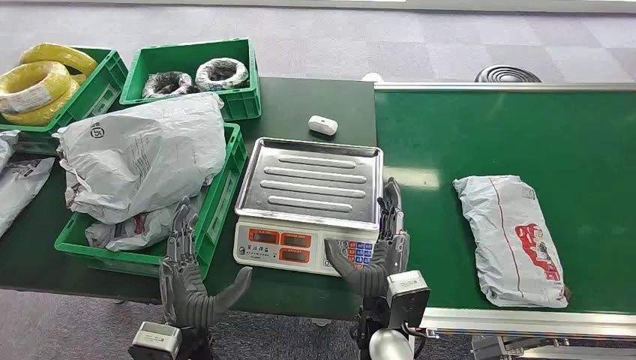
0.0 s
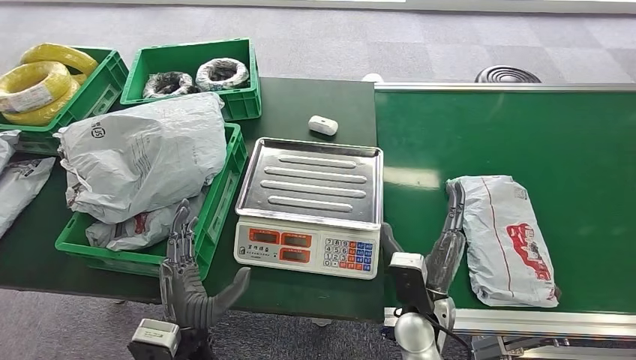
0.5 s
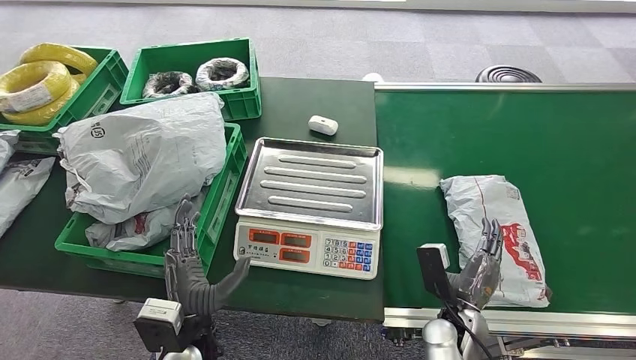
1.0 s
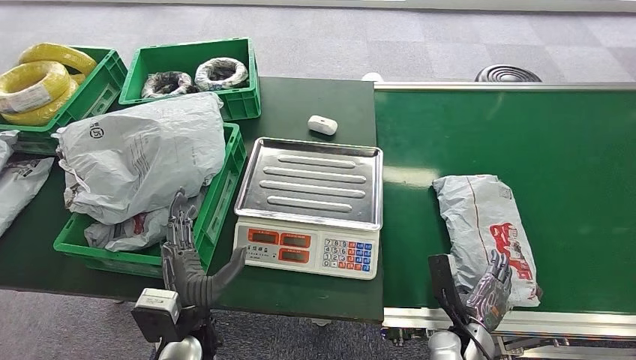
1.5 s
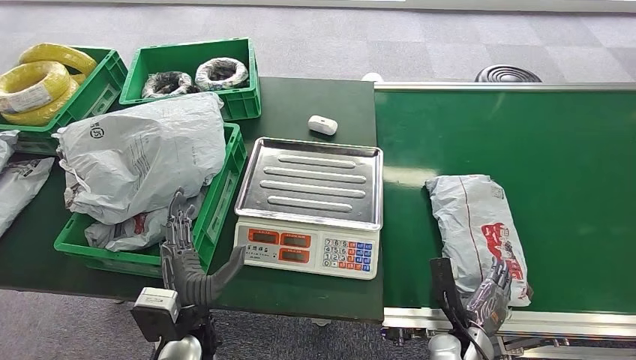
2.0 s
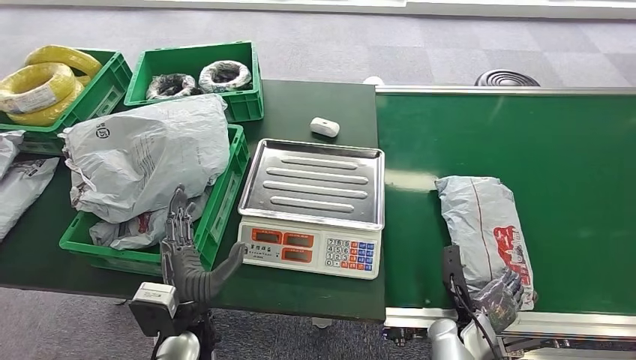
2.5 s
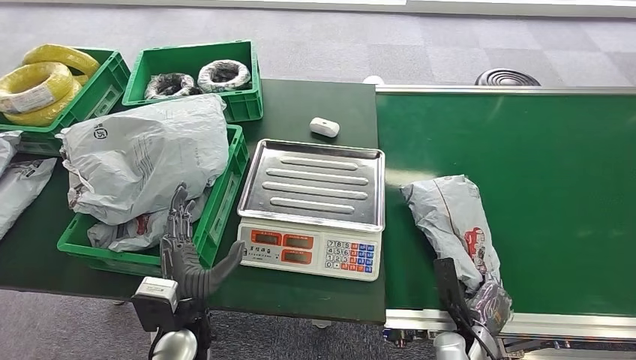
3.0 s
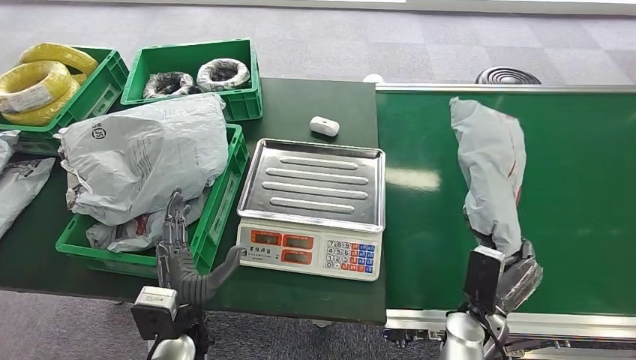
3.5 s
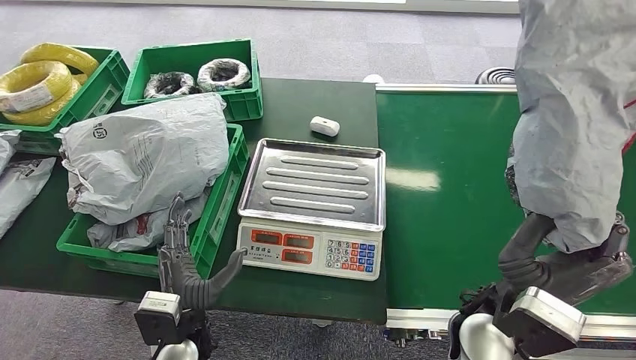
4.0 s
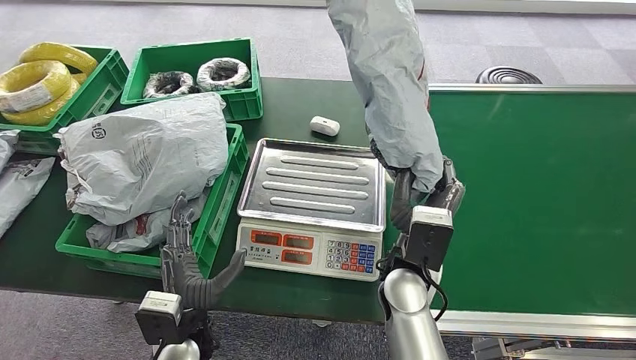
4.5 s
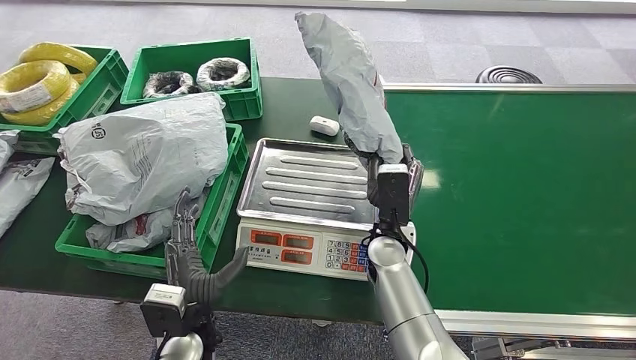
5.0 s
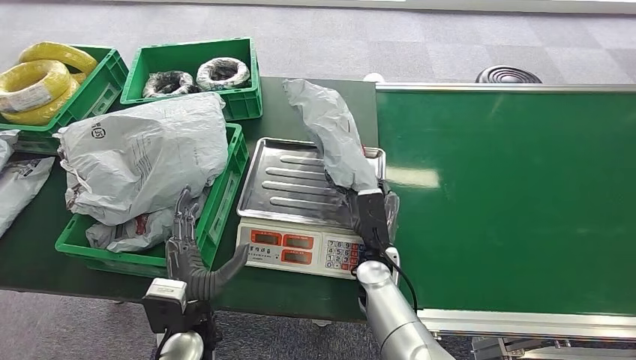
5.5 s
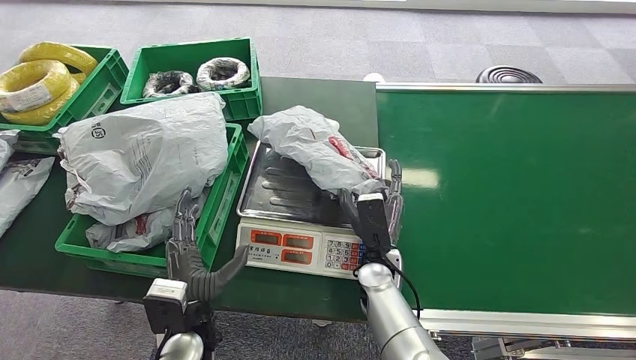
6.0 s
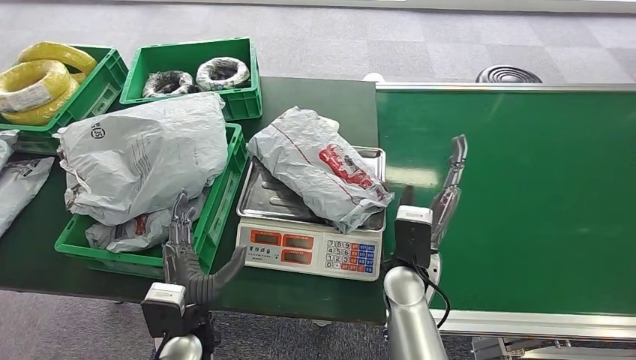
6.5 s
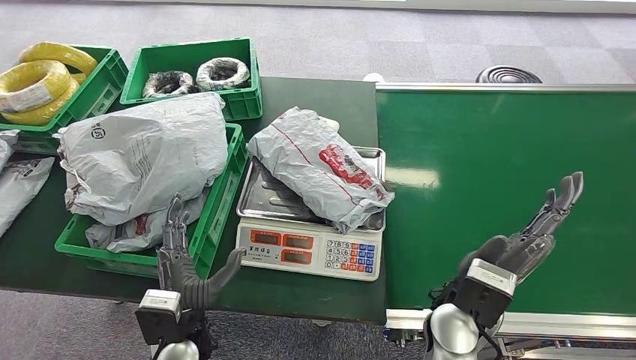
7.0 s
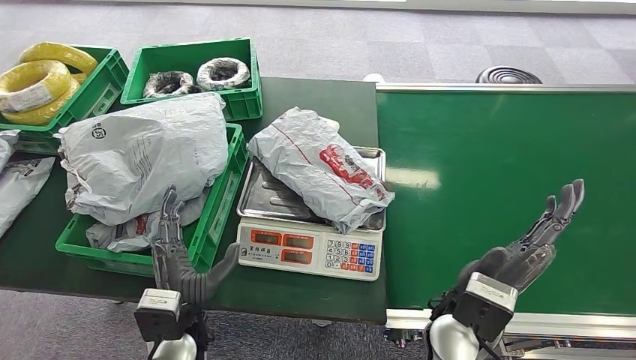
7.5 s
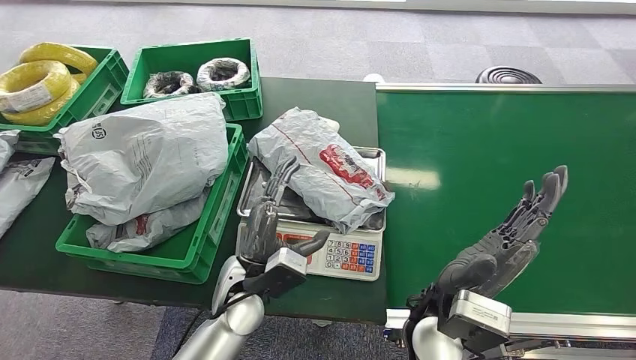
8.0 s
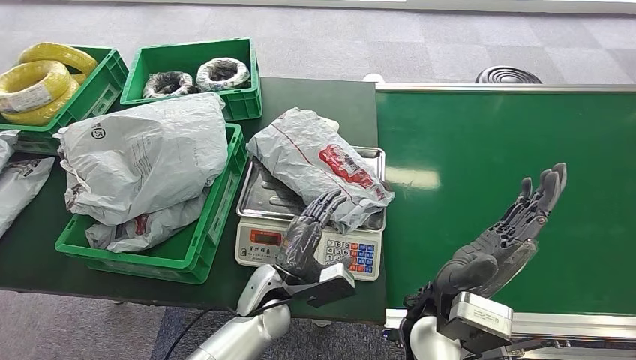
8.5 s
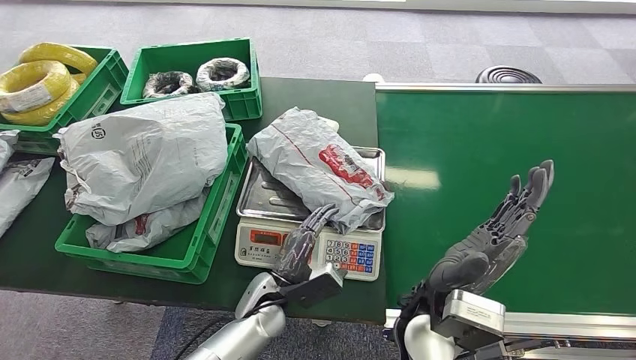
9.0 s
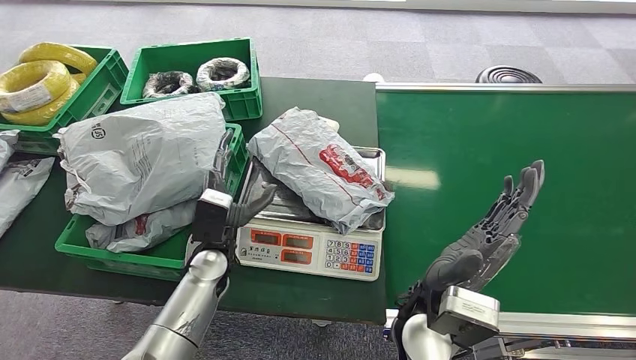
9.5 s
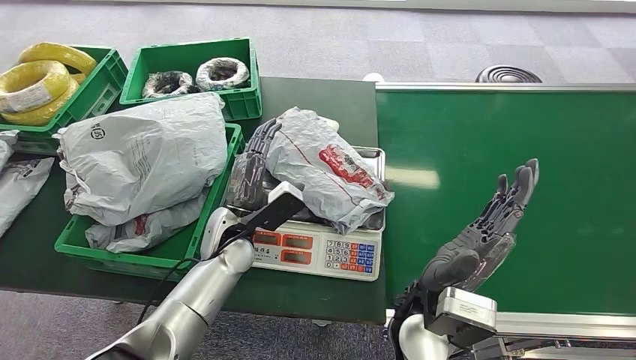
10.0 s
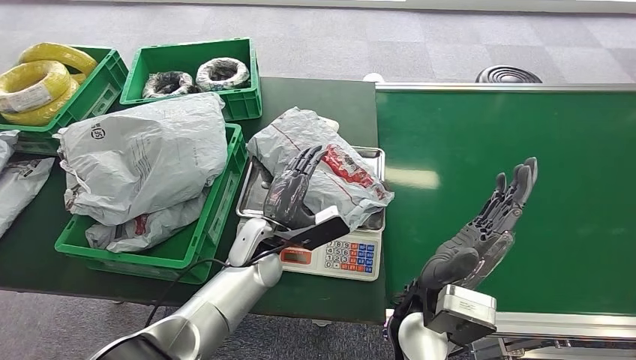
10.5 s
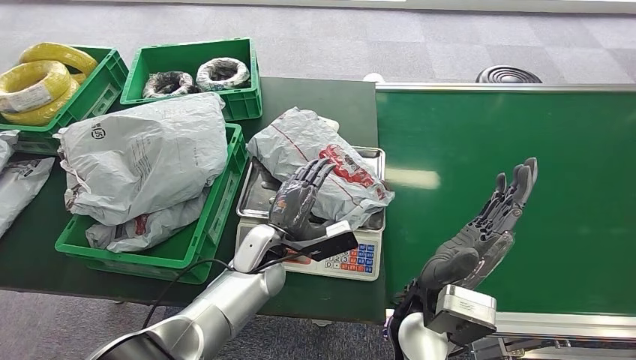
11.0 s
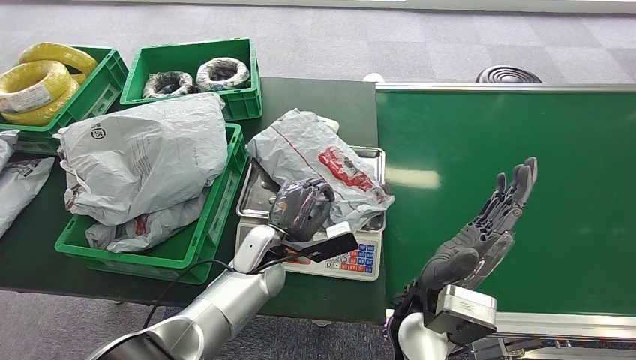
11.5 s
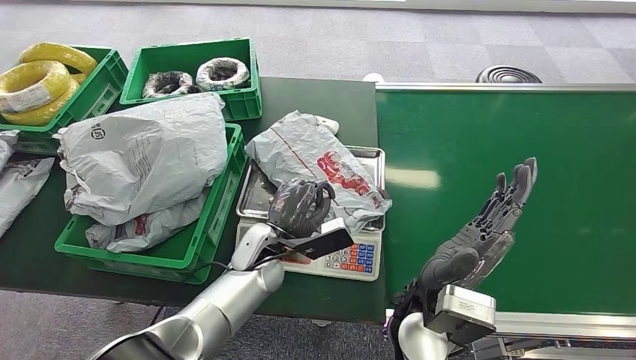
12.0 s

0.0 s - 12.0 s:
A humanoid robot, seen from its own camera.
Step, 0.0 s - 3.5 s: Pick up the package from the conveyor belt.
Step, 4.0 s - 6.5 s: Place the package onto the inbound machine.
6.0 s - 8.0 s: The left hand shifts roughly 10 cm to the right and forward, while the right hand shifts approximately 15 cm upward and backward.
8.0 s - 10.0 s: The left hand is displaced forward by approximately 10 cm, and goes downward and returns, some 10 cm each way.
10.0 s - 12.0 s: The left hand shifts by approximately 5 cm.

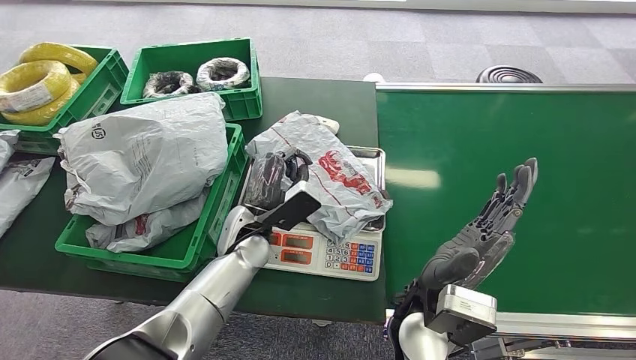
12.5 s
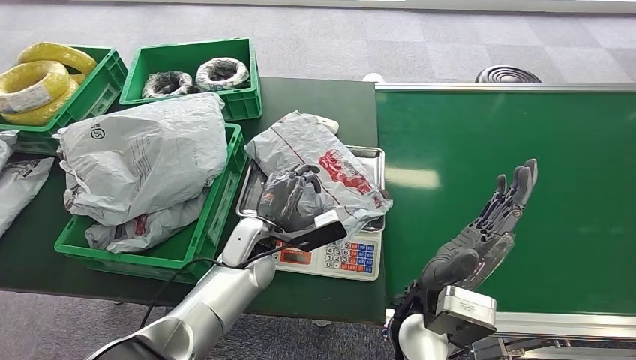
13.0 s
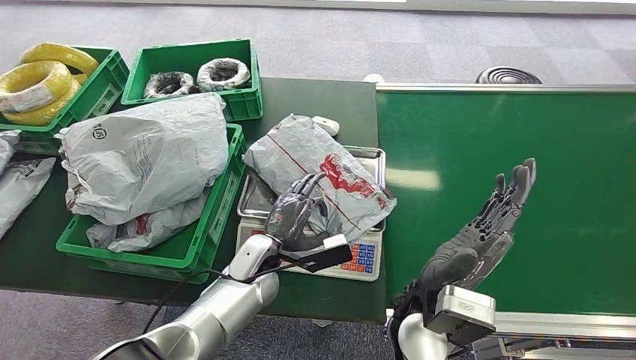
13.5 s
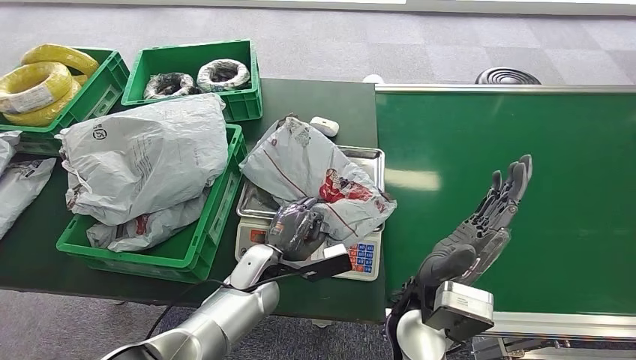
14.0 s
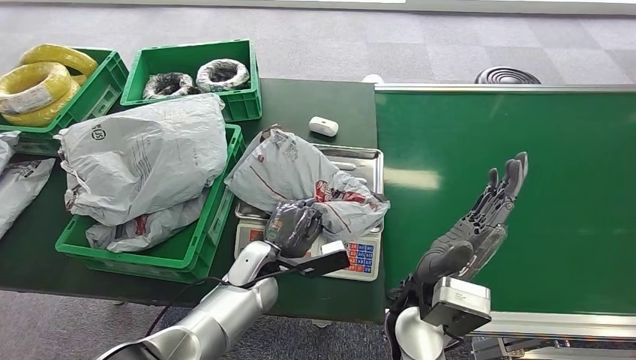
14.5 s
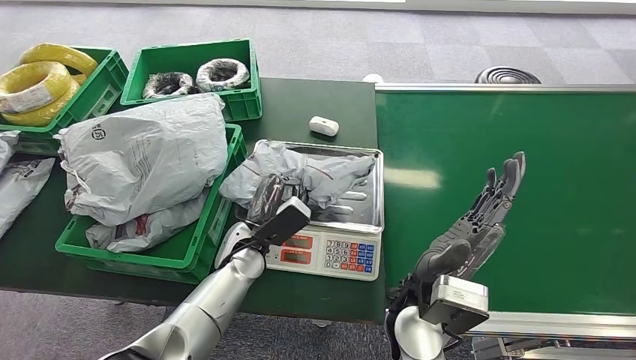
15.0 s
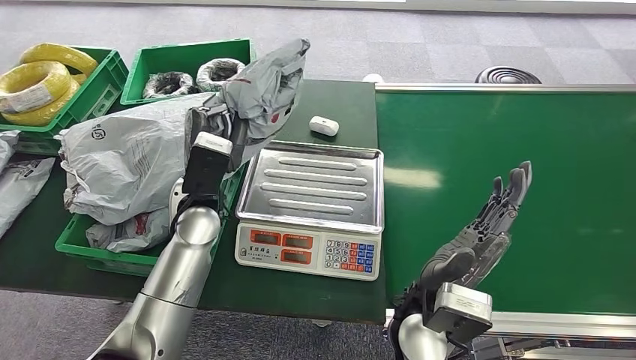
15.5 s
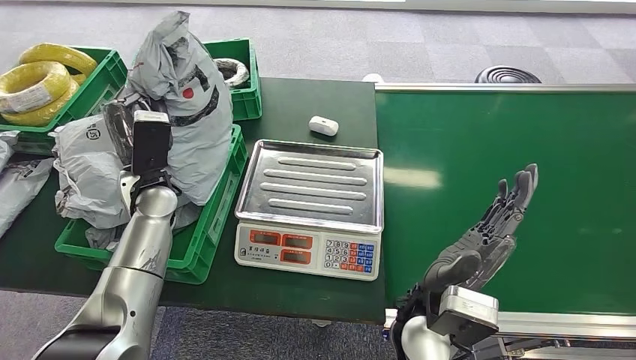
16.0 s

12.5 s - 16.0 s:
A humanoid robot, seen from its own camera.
Step, 12.5 s - 15.0 s: Pick up the package from the inbound machine.
12.5 s - 14.5 s: The left hand shifts some 5 cm downward.
